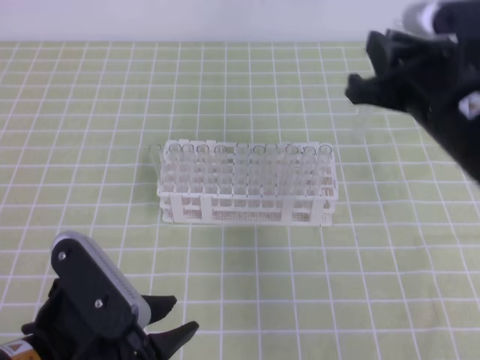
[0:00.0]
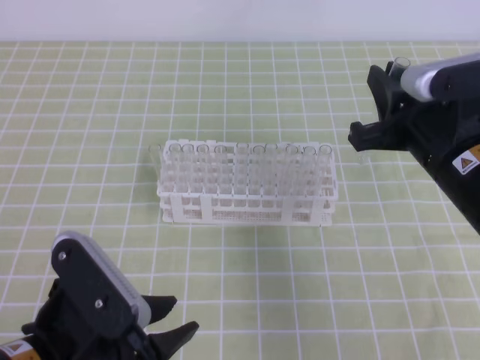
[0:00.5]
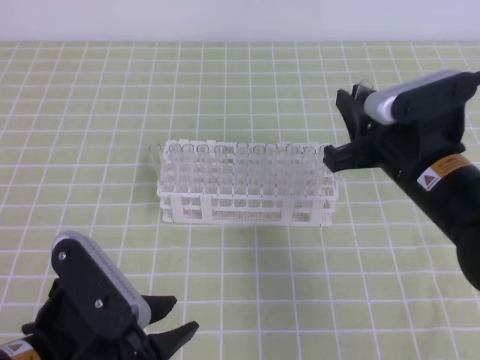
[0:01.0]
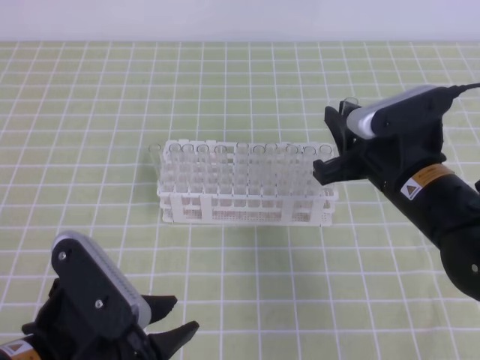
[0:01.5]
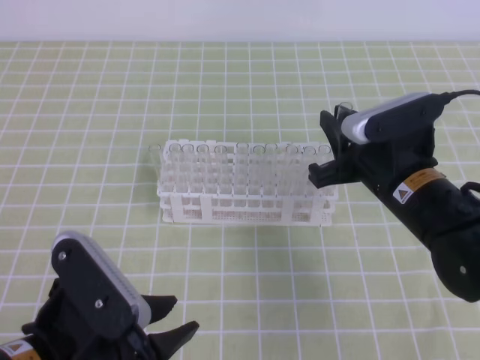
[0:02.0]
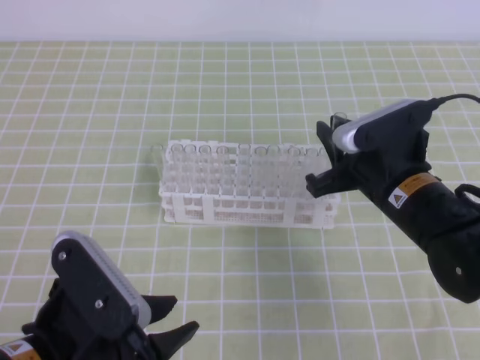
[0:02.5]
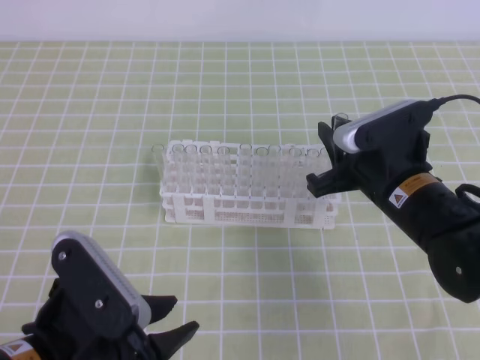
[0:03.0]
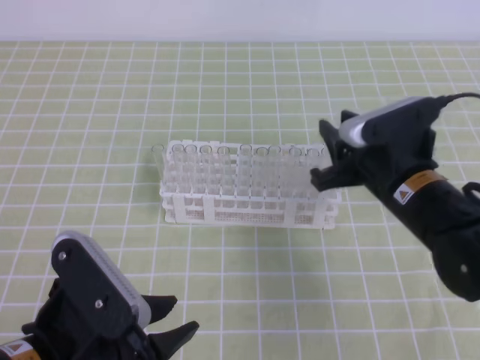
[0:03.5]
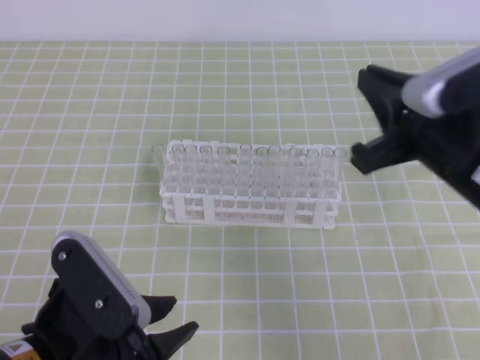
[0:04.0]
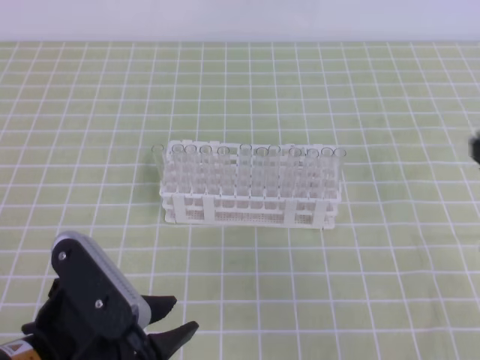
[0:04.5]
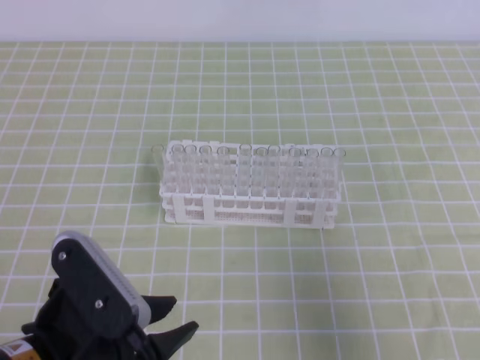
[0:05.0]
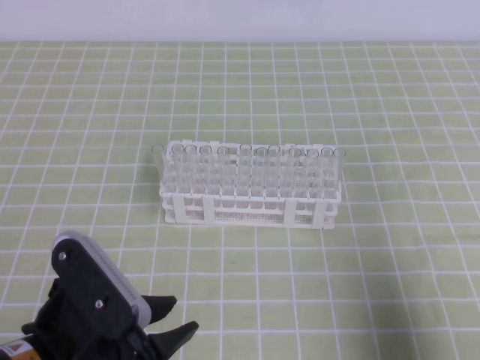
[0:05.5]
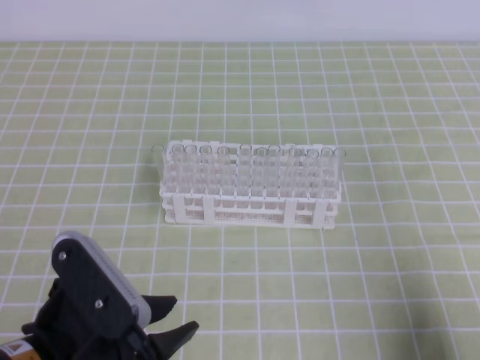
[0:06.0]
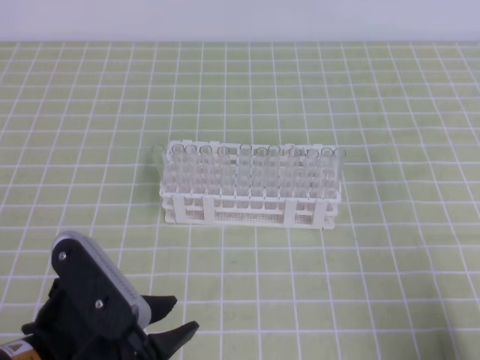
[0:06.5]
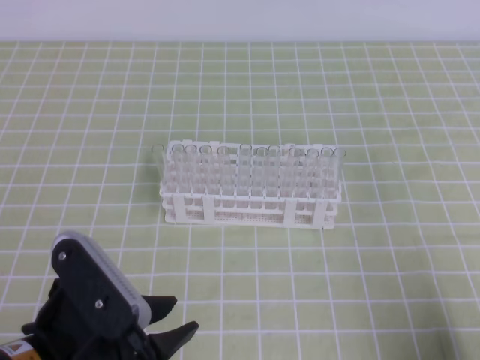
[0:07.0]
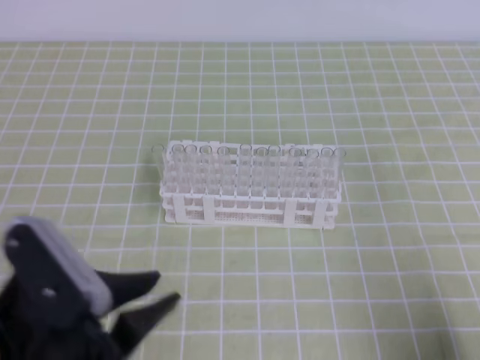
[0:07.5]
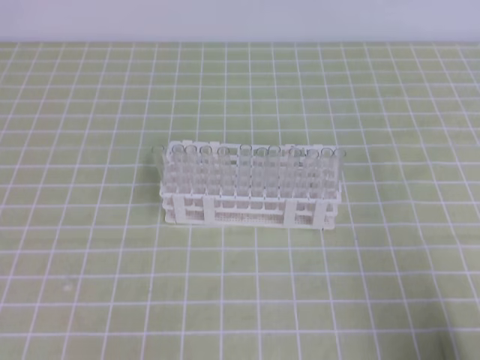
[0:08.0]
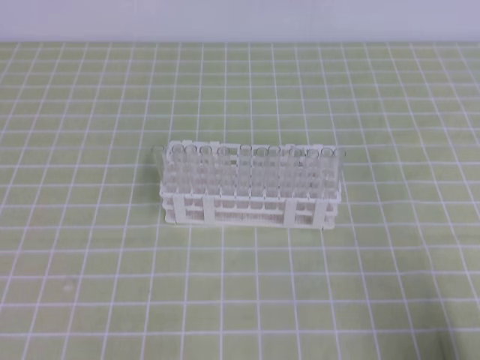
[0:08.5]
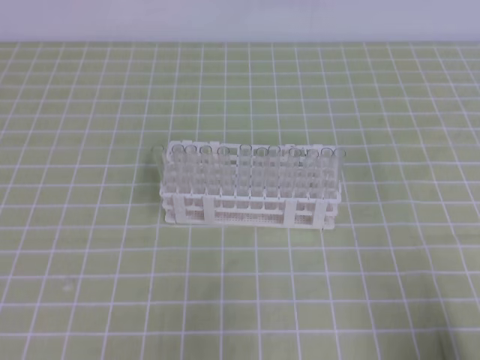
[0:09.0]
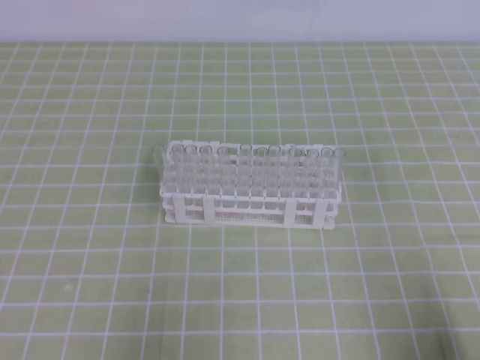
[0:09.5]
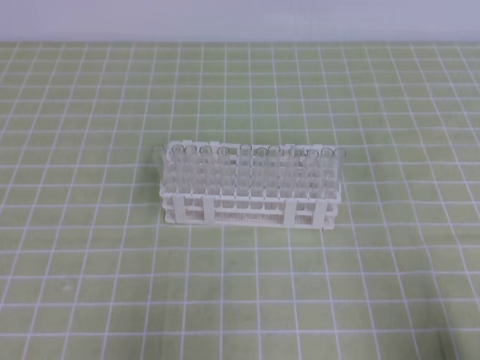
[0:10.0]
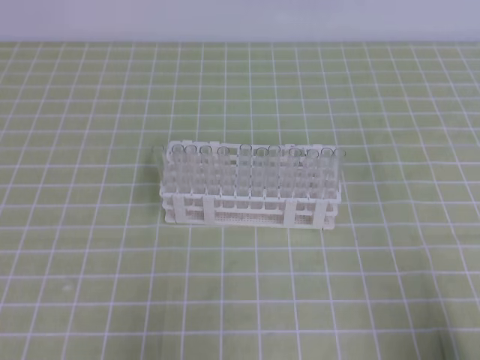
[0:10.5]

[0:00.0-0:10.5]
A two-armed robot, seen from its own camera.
0:00.0 to 0:02.0: The right gripper is displaced downward by approximately 10 cm.
0:02.0 to 0:04.0: The right gripper heads upward and backward, covering approximately 10 cm.
0:04.0 to 0:06.5: The right gripper goes roughly 25 cm backward, to the right and downward.
0:06.5 to 0:08.5: The left gripper goes some 15 cm to the left and upward, and closes its fingers.
0:08.5 to 0:10.5: The left gripper goes some 10 cm downward.
